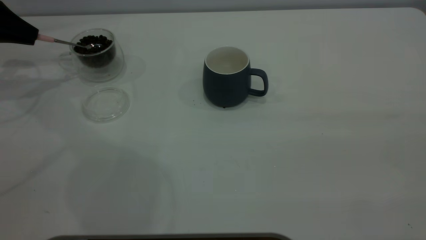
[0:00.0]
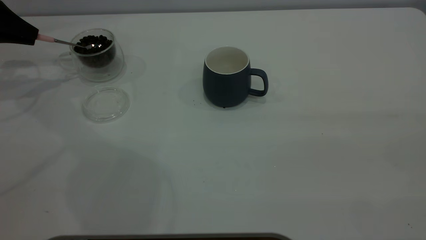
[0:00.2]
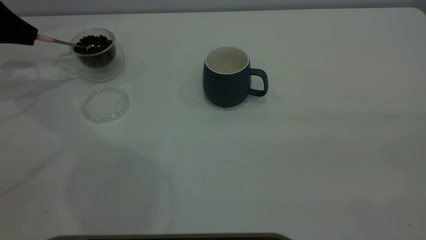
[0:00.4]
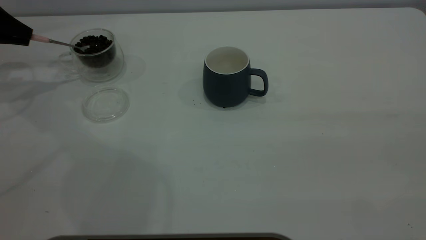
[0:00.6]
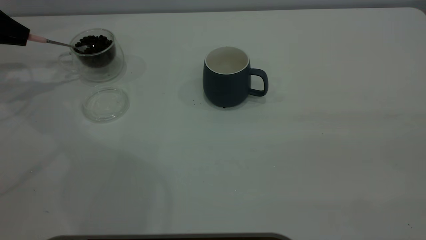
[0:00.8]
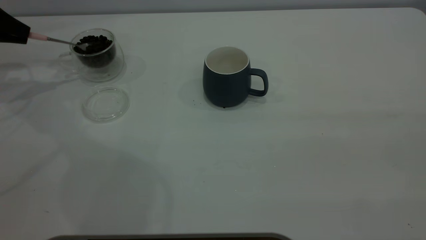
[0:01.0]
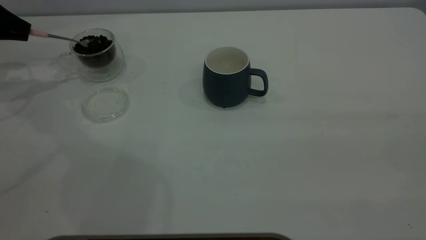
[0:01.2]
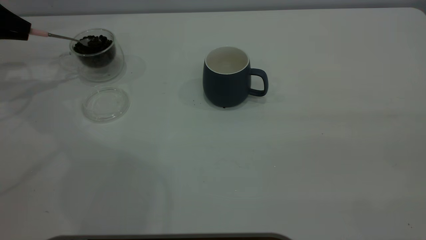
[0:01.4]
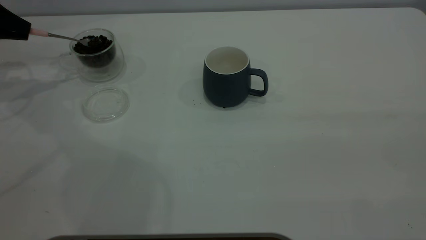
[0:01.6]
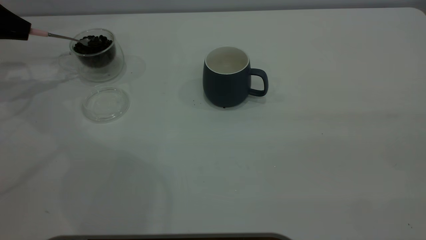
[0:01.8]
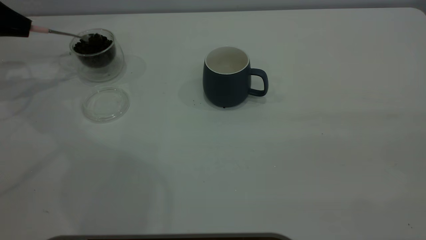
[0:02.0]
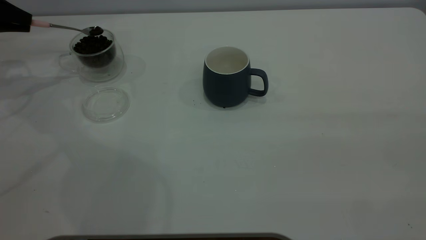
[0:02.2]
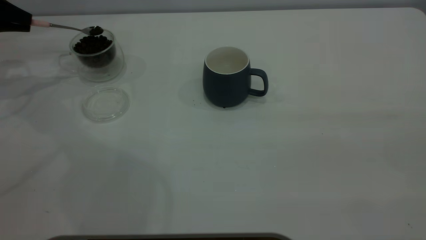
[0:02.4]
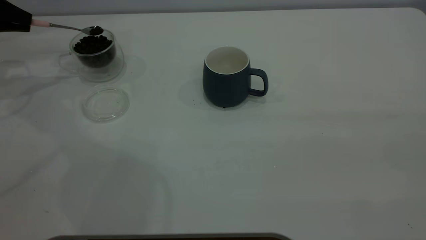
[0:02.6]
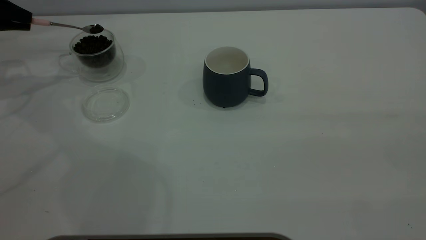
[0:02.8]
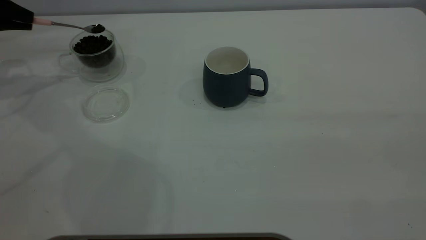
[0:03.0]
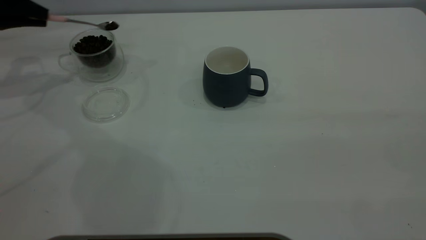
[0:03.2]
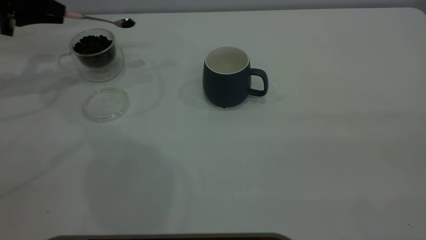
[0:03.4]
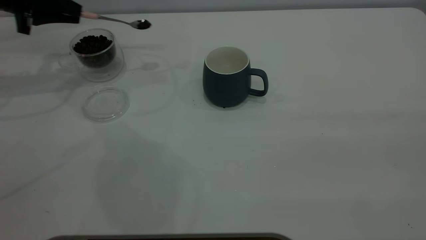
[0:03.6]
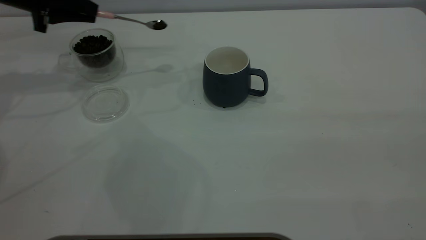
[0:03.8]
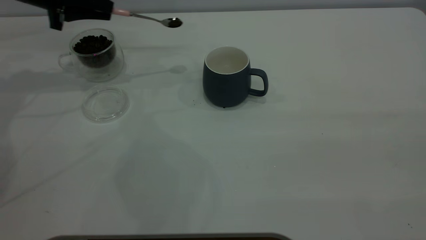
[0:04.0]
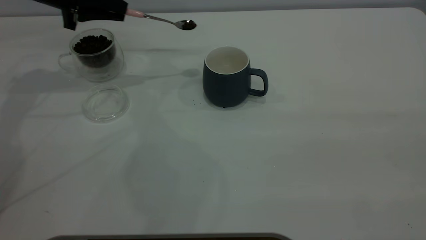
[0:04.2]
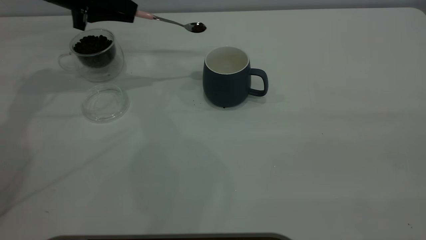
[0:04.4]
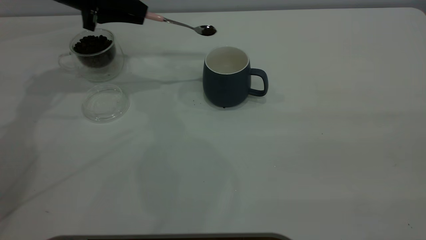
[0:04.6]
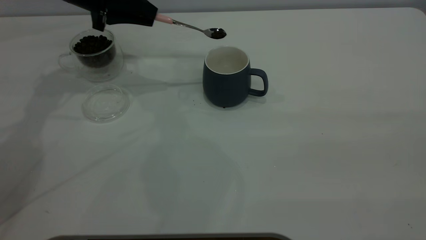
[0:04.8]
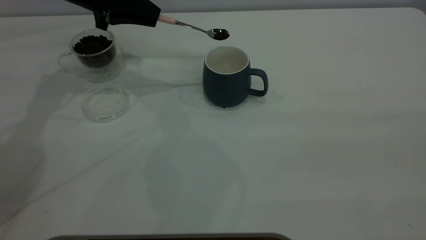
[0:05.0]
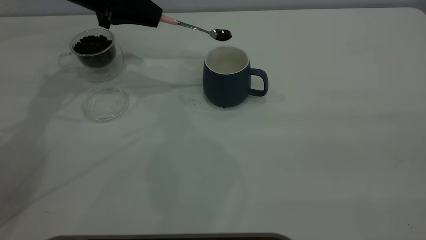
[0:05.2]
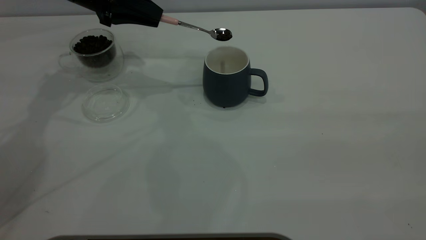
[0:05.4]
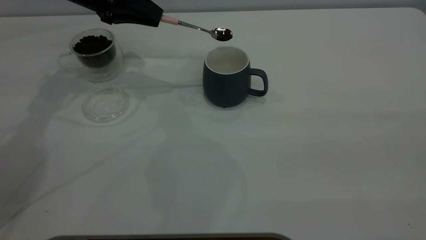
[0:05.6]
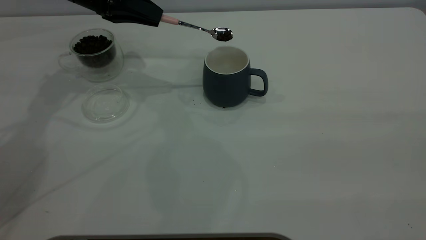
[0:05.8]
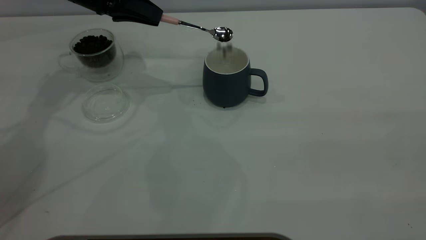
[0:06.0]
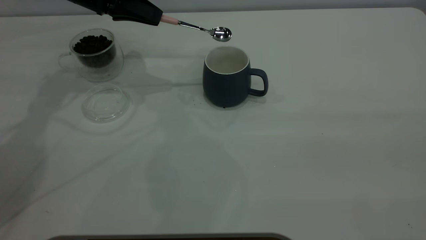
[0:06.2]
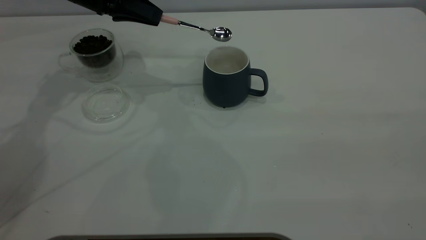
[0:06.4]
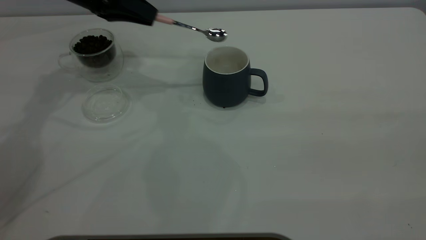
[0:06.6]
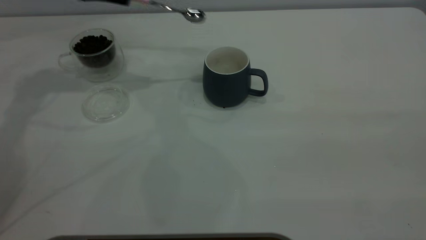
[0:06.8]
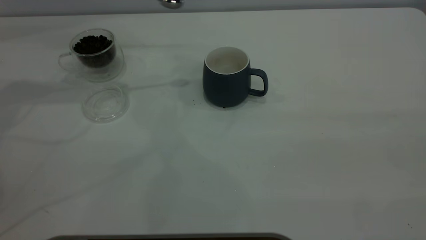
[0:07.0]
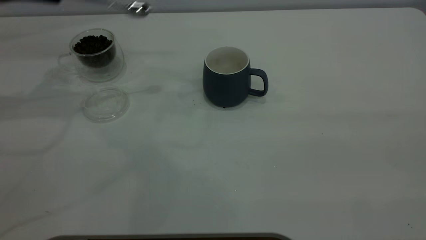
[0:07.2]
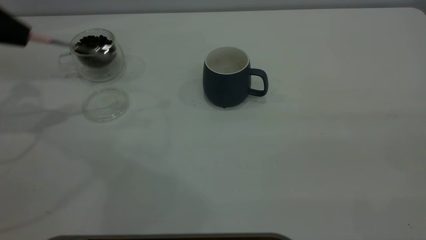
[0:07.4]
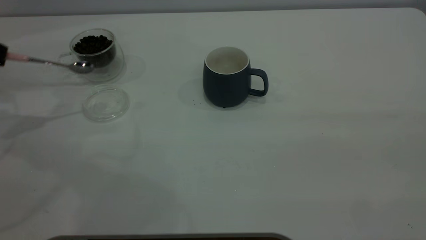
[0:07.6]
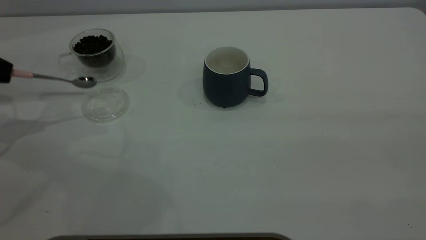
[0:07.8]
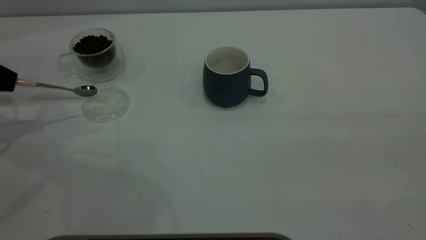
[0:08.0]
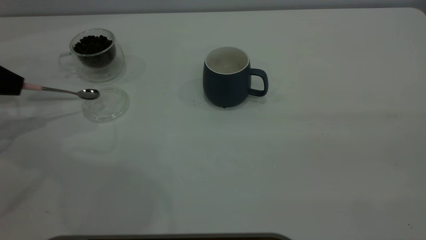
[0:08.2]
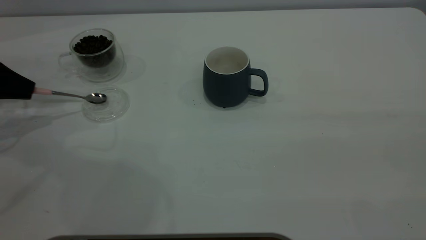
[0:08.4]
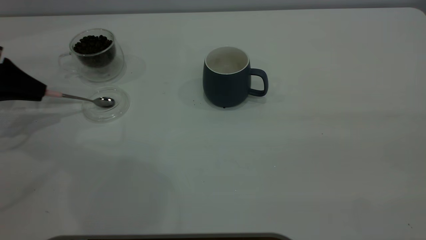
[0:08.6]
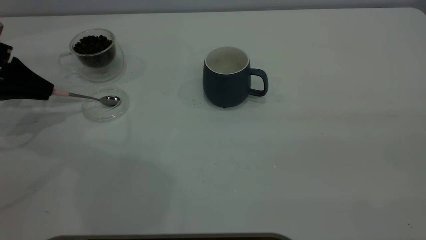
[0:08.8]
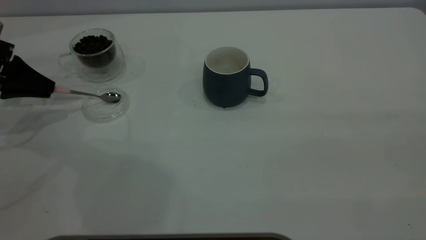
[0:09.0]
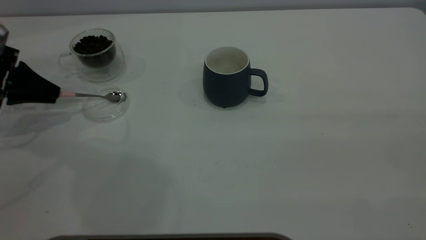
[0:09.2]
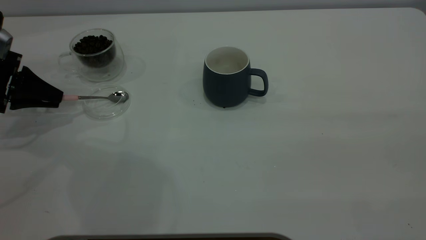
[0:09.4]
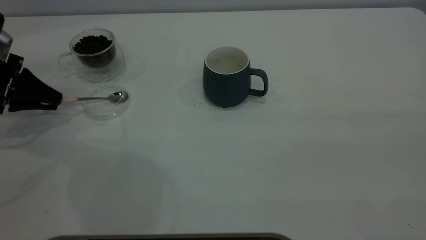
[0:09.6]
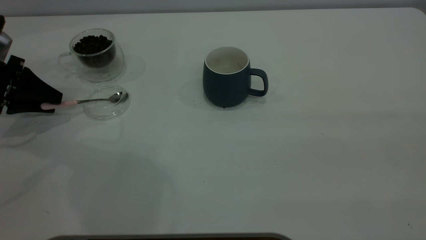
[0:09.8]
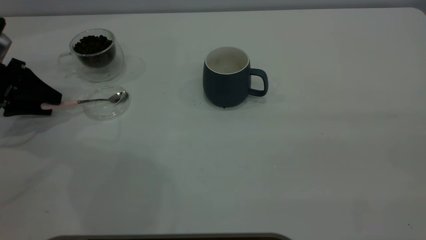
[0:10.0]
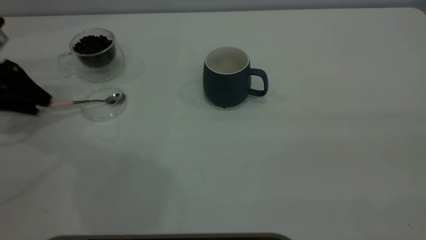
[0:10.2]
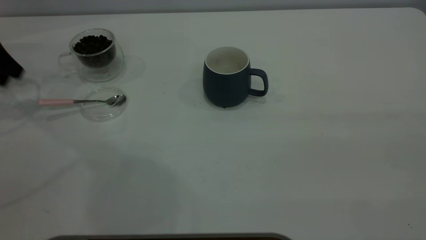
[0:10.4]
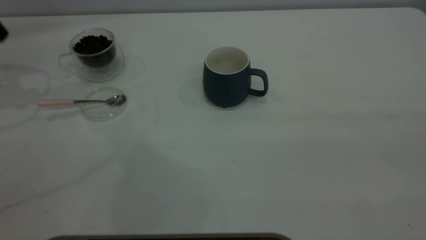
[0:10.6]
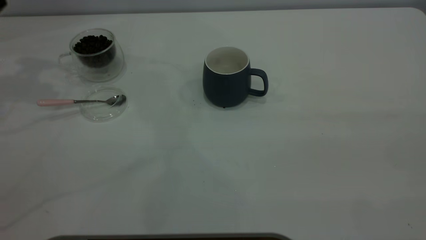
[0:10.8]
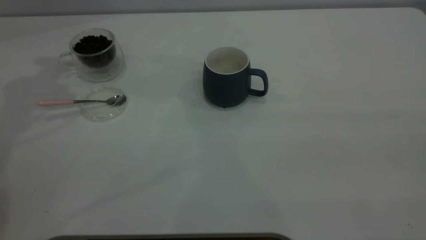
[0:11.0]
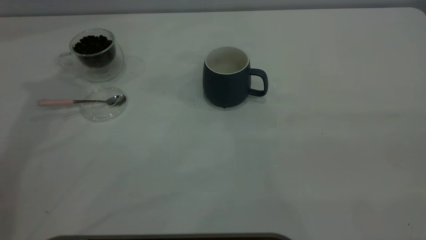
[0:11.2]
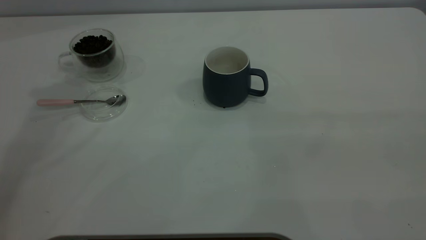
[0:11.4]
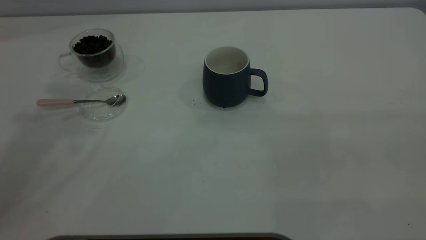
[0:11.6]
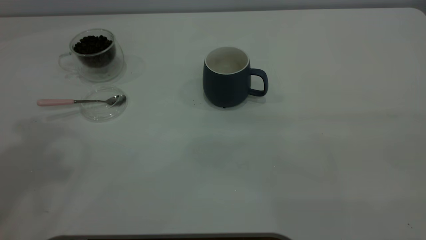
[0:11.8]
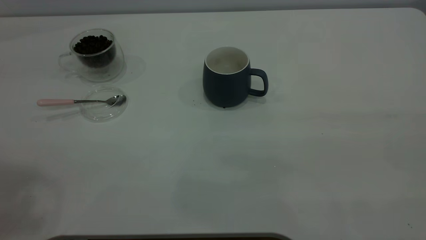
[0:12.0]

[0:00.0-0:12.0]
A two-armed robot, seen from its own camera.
Task of the whole recording: the right gripper place the grey cup in the center of the table, the left gripper take the pink spoon from the cup lid and scoop out the coffee beans from the coffee cup and put them into the grey cup, the left gripper put the spoon back into the cup lid.
Step, 0:00.0 to 0:06.6: Scoop a spoonful of beans into the cup.
Step, 0:06.8 to 0:10.2: Place the spoon back in its original place.
0:01.6 to 0:03.0: The grippers make only small movements.
0:03.0 to 0:04.4: The left gripper heads to the right, covering approximately 20 cm.
0:06.0 to 0:07.6: The left gripper travels to the left and backward by roughly 25 cm.
0:07.6 to 0:09.0: The left gripper is displaced downward by about 5 cm.
0:09.0 to 0:10.4: The left gripper moves upward, roughly 5 cm, and opens.
0:10.4 to 0:12.0: The left gripper heads upward, backward and to the right, covering approximately 40 cm.

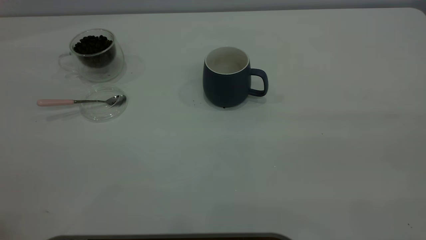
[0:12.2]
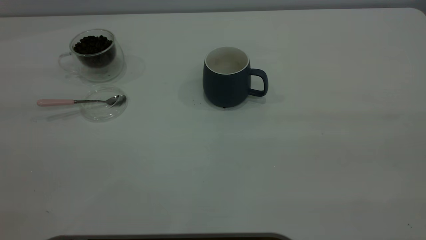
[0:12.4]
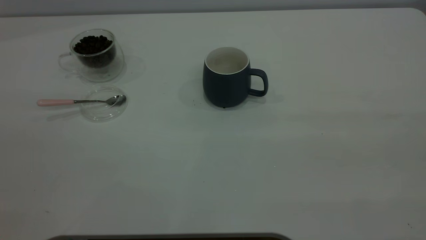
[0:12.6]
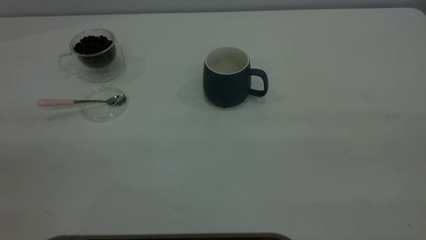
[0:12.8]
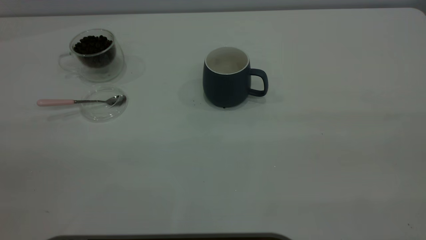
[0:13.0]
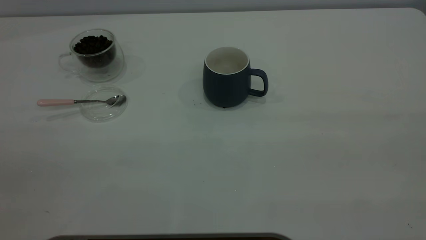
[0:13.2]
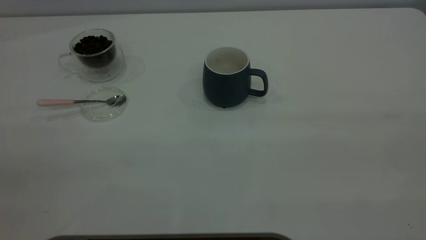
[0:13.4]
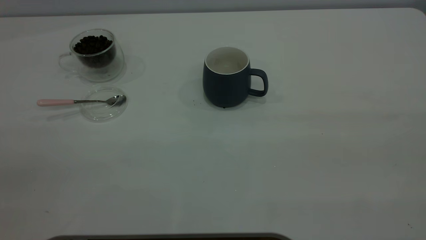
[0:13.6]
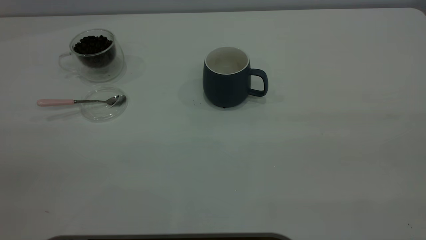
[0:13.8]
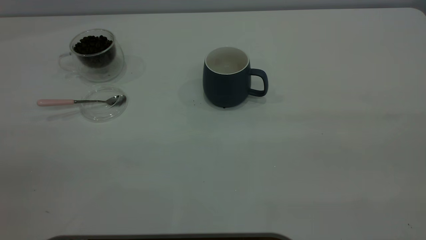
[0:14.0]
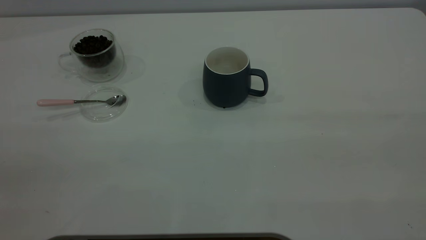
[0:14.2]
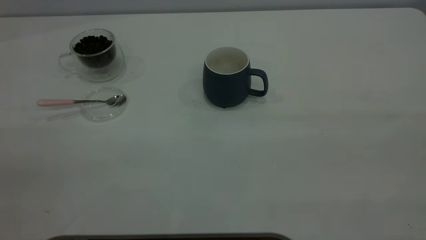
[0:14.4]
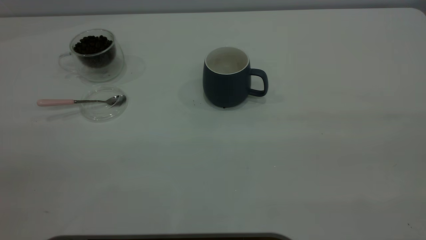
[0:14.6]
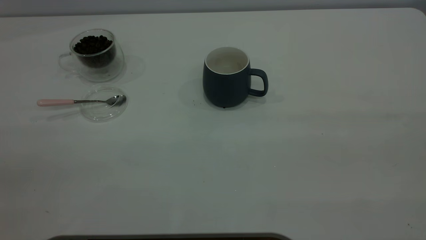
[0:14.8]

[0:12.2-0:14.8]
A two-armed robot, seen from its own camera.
Task of the whole recording: the right gripper place the grey cup in the center of the table, the left gripper take the pink spoon from the cup lid and scoop out the coffee beans from the coffee cup and put them into the grey cup, the left gripper put the spoon back into the cup lid.
0:13.4 to 0:14.8: Neither gripper changes place.

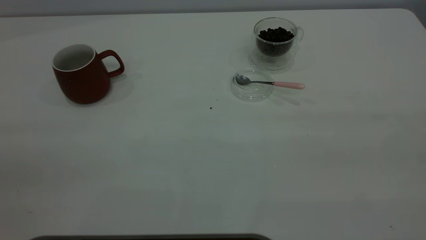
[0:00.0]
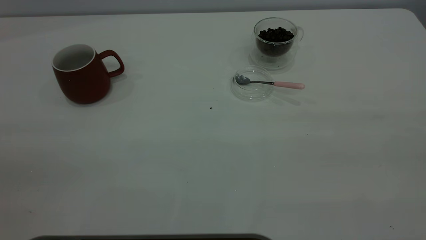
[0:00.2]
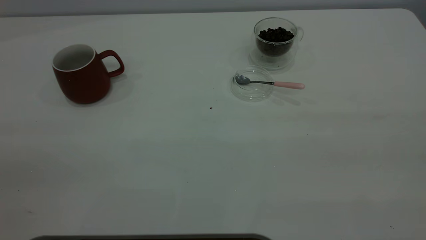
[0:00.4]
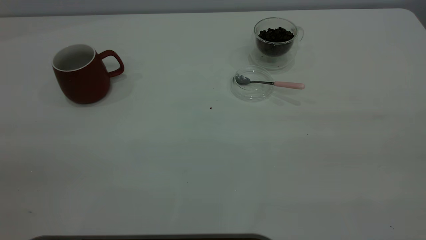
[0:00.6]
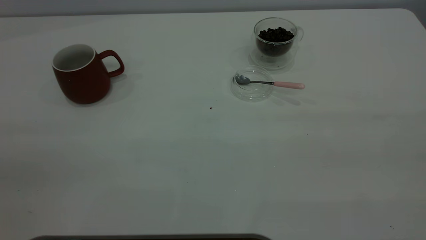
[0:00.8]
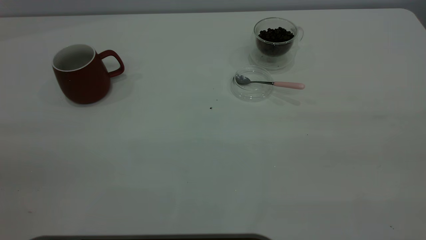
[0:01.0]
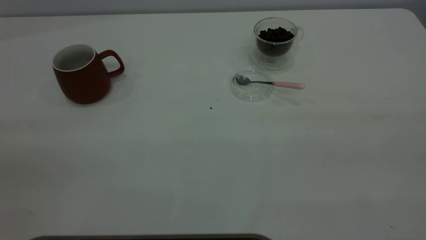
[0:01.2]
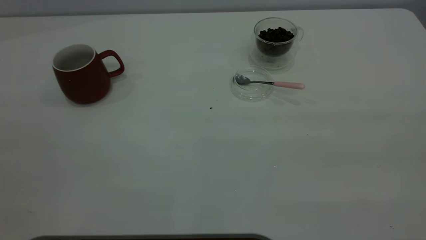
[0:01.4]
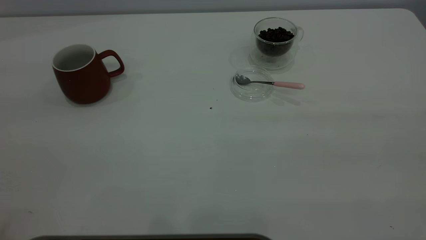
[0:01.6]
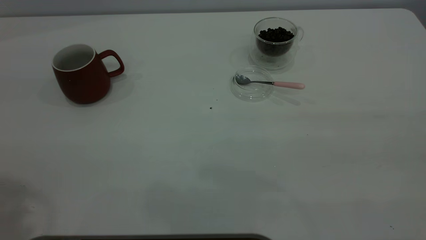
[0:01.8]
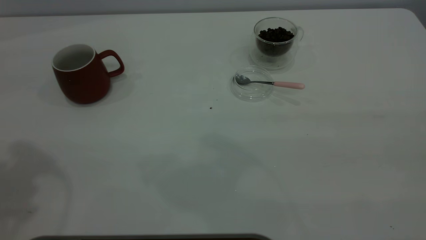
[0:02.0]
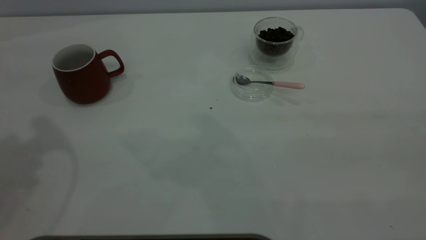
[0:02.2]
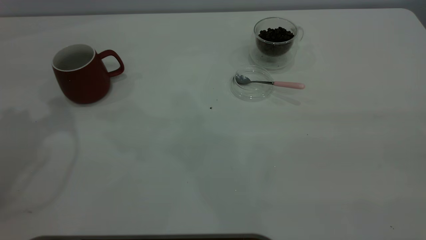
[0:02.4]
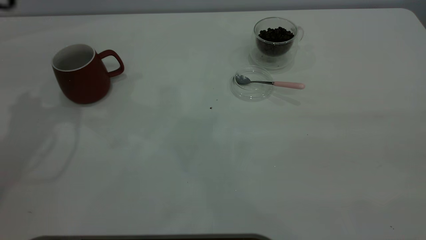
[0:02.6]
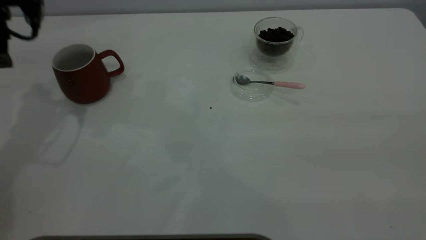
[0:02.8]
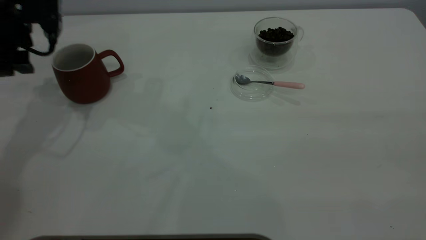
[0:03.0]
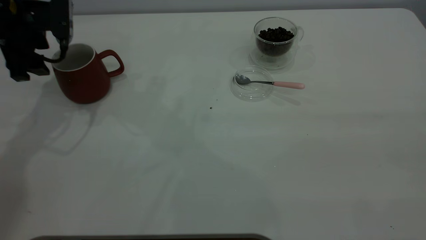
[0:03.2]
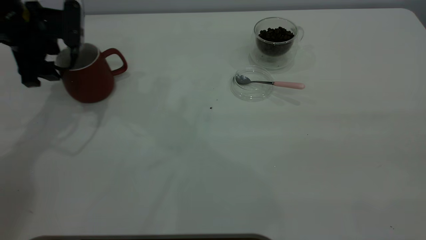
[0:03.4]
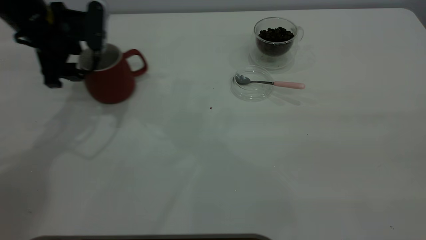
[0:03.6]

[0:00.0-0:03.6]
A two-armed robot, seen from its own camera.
Task of the whole recording: the left gripper place the red cup in the center of the table, the right gripper take the pink spoon from the cup lid and scoop out the coffee beans from the coffee cup and put them into the red cup, the right gripper put the spoon back into the cup lid.
0:01.8 to 0:03.6: The left gripper travels downward and forward by approximately 35 cm.
